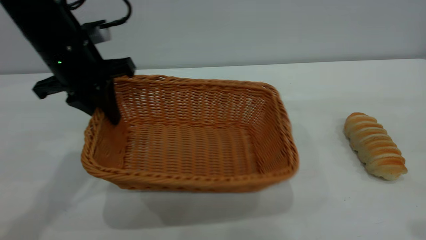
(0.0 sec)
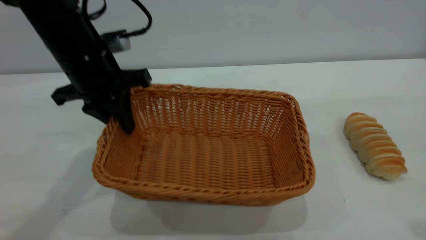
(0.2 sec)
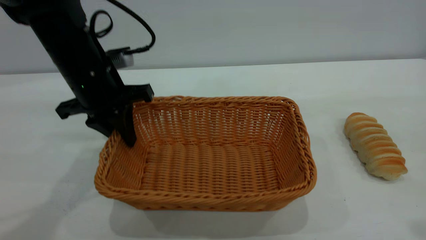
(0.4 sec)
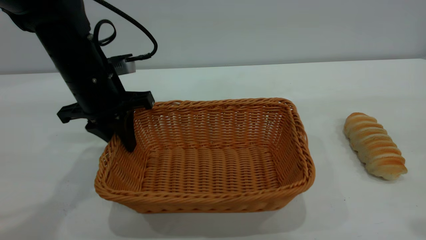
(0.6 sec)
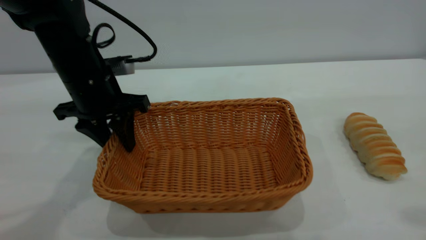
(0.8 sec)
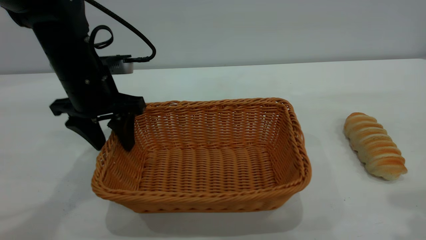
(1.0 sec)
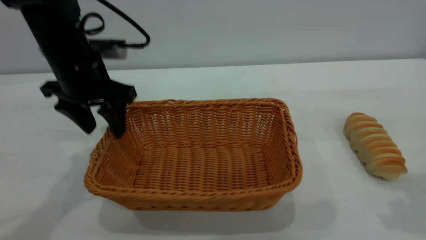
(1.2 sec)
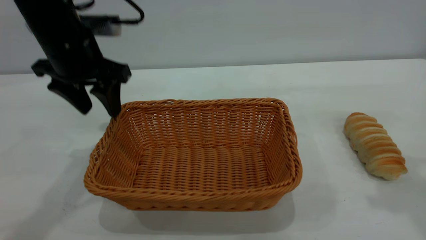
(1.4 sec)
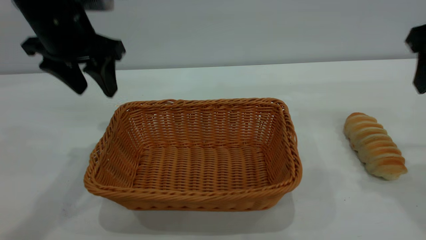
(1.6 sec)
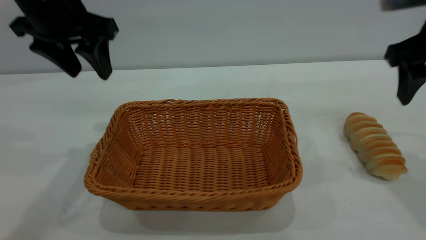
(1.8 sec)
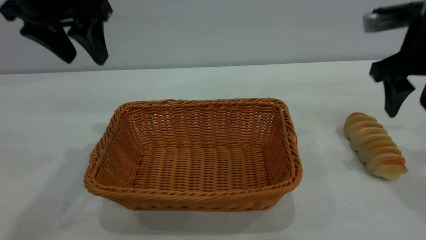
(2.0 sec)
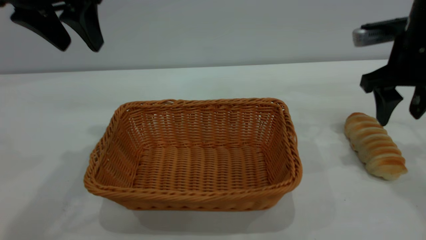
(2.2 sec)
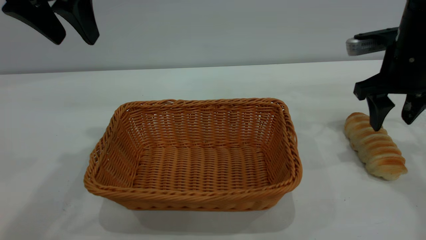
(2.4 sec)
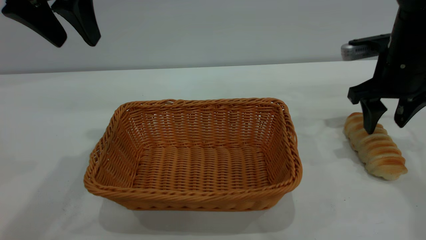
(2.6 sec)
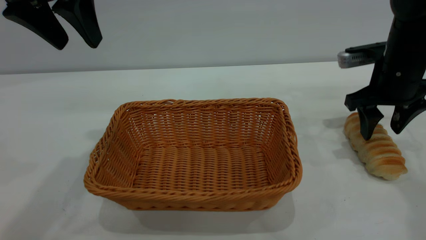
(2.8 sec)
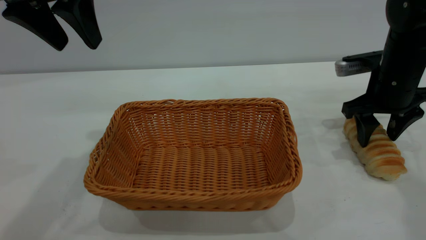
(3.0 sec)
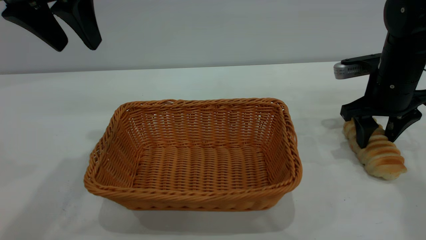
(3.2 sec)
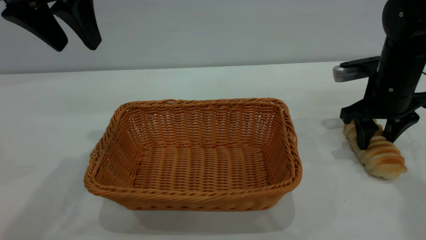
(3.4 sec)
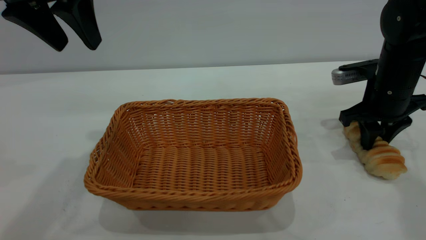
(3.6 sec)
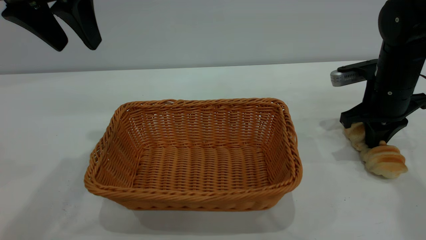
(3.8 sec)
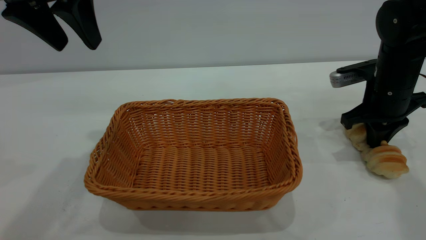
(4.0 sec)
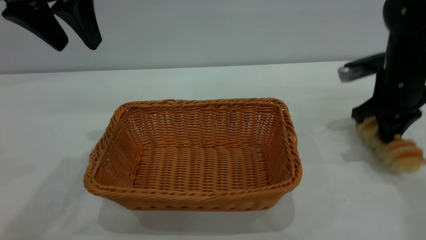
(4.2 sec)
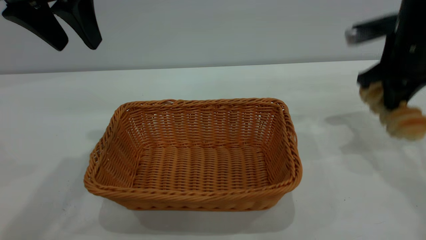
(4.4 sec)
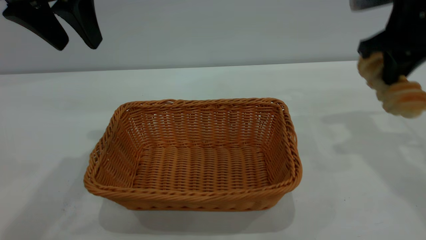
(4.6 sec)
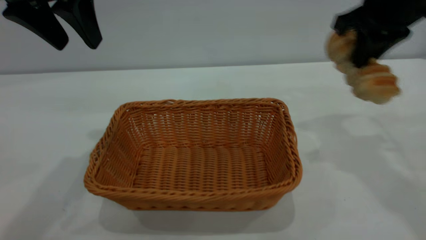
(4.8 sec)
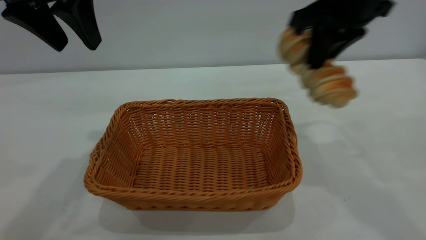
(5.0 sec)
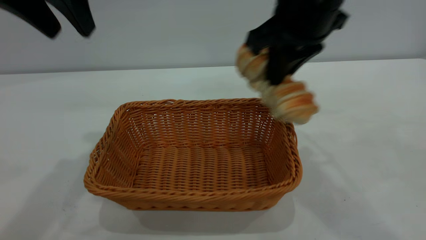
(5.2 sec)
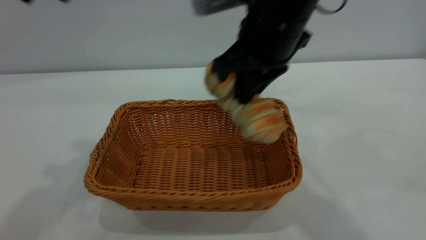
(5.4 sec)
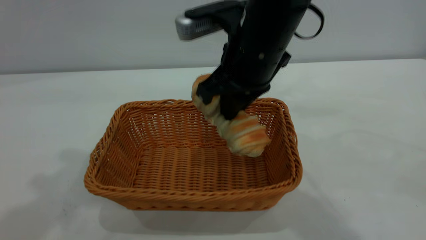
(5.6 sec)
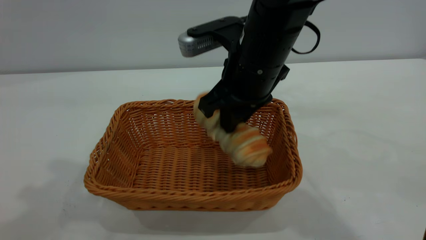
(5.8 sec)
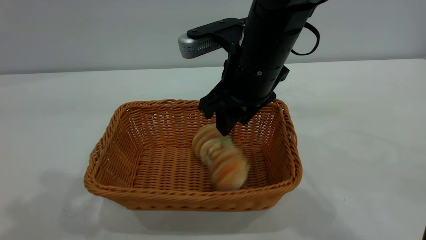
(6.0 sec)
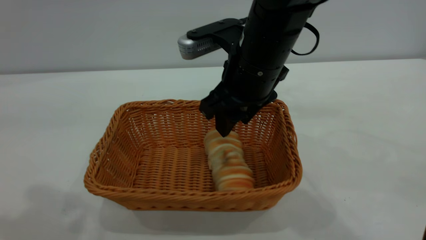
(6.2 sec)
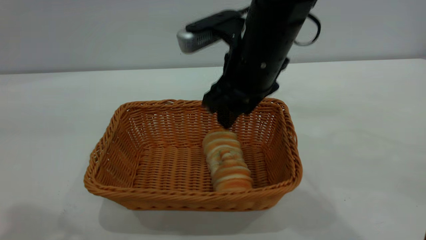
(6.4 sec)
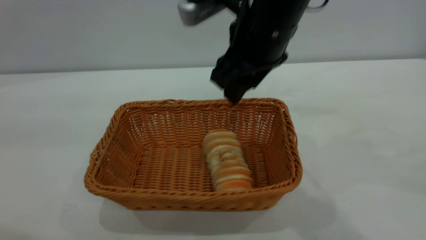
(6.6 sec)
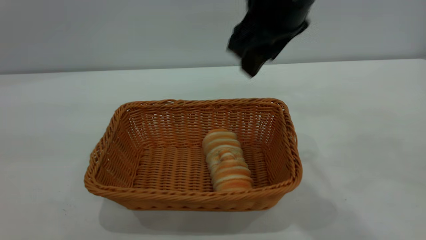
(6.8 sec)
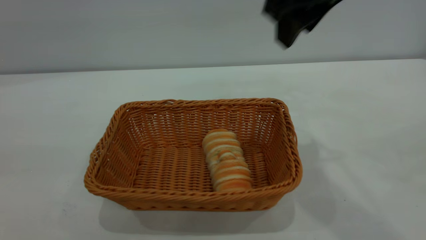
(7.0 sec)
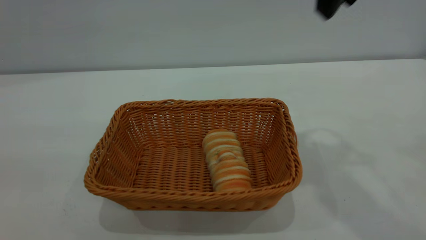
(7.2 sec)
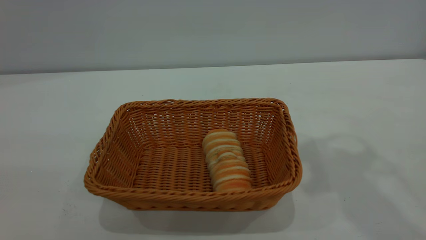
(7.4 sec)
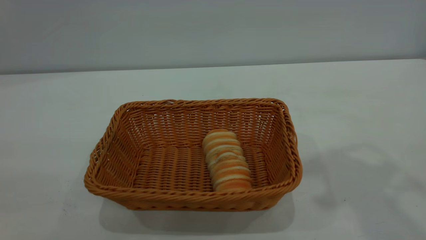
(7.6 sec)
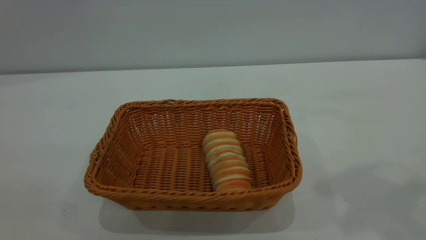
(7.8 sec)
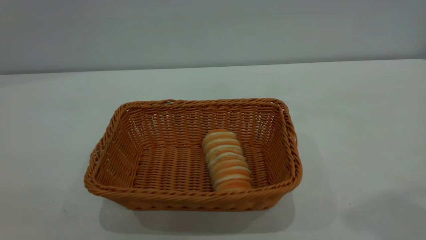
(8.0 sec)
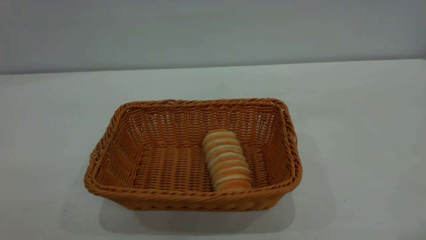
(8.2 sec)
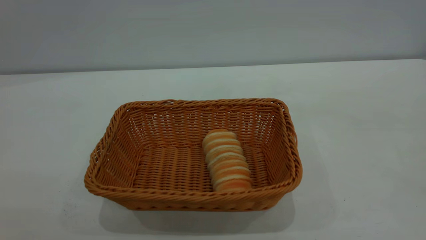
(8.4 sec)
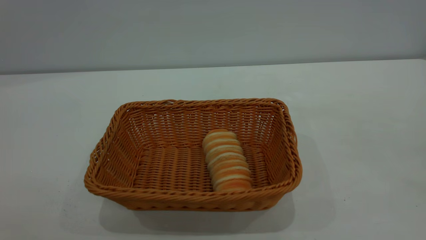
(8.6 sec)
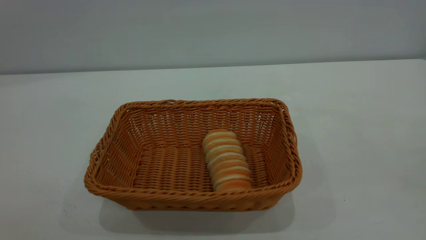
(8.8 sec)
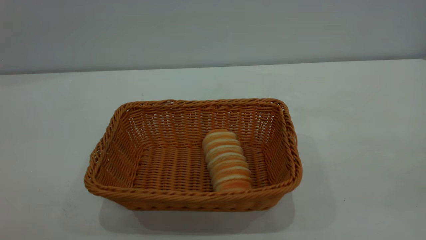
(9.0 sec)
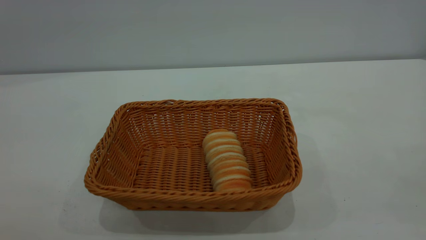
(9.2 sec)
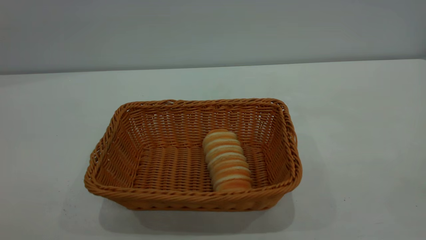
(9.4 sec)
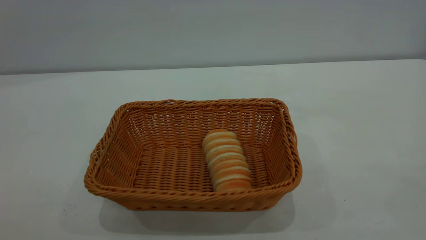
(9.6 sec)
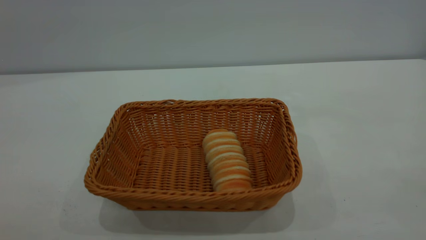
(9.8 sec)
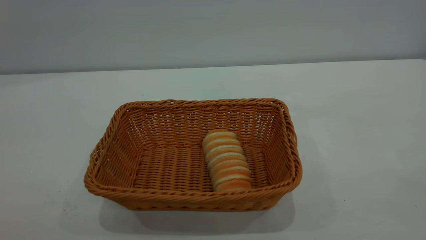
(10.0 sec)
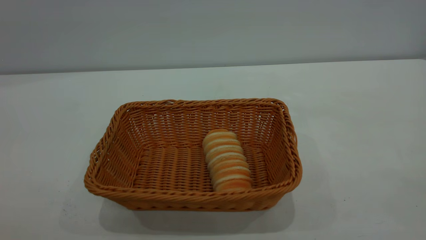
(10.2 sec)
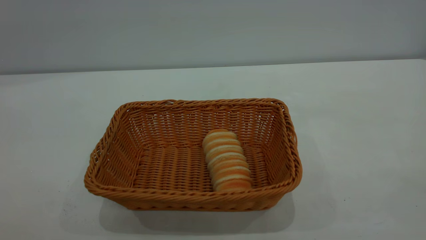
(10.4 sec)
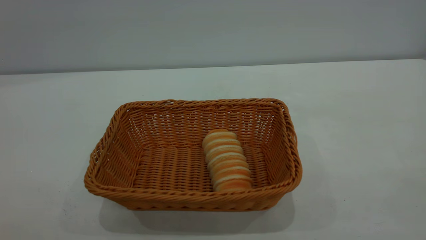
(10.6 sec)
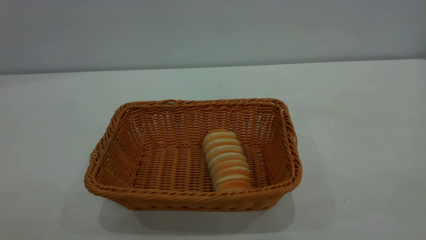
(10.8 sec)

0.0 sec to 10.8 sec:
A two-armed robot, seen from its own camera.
Task of the whole recording: One hand grasps the yellow basket and places it in the middle of the table, while the other hand picks up the long bread and puts it into the yellow basket.
Step, 4.6 sec to 6.6 sec: place the bread into the basket.
0.0 sec to 1.6 sec: The right gripper is displaced forward and downward by approximately 20 cm; the left gripper is displaced upward by roughly 5 cm, and opens up.
1.6 sec to 3.0 sec: The right gripper is displaced downward and forward by about 15 cm. The left gripper is displaced upward by approximately 5 cm.
3.0 sec to 4.6 sec: The right gripper travels upward by approximately 10 cm, and closes up.
4.6 sec to 6.2 sec: The left gripper is displaced backward and upward by approximately 15 cm, while the right gripper goes approximately 20 cm to the left, and opens up.
6.2 sec to 7.8 sec: The right gripper is displaced upward, to the right and backward by approximately 35 cm, while the left gripper moves backward, some 15 cm.

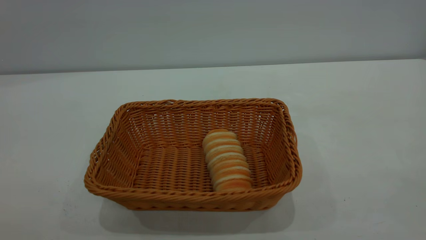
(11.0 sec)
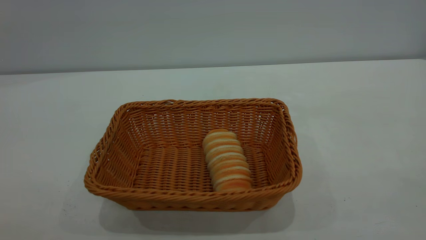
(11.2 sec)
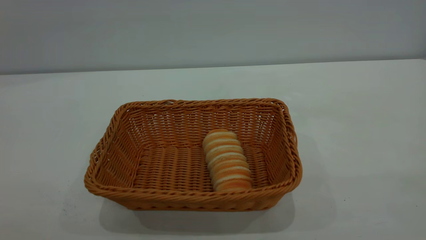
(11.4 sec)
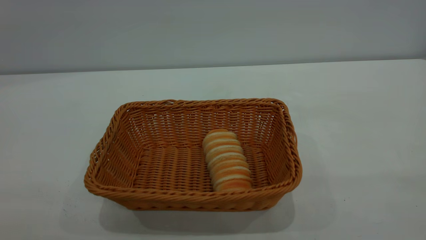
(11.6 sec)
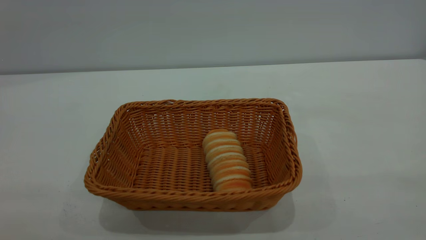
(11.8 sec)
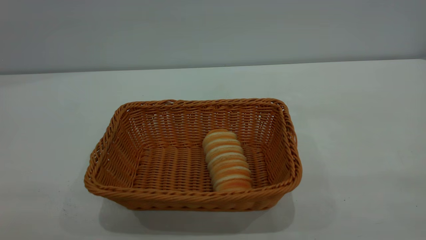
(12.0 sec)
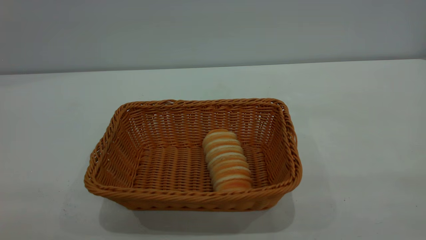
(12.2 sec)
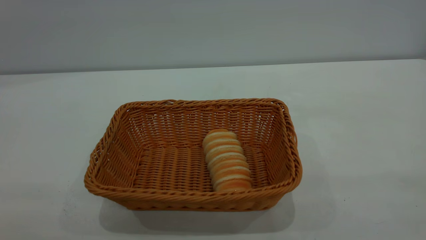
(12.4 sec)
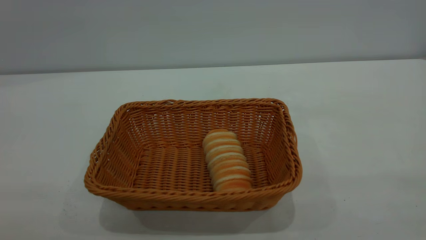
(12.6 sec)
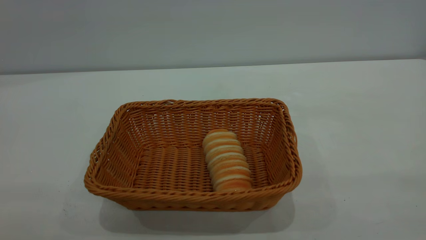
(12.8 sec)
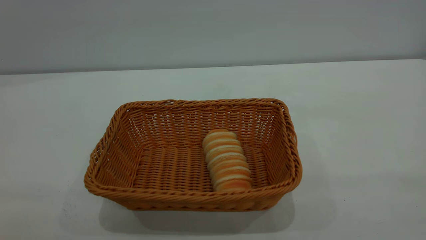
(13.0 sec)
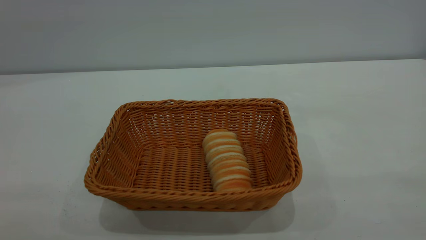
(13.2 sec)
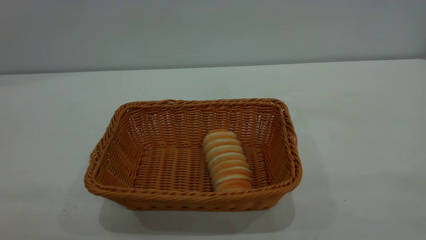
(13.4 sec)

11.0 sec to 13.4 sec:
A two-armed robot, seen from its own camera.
Task of the whole recording: One hand grasps the yellow basket and places it in the middle of the table, while the other hand picks up the long bread and puts it into the yellow basket.
12.2 sec to 13.4 sec: Both grippers stay put.
